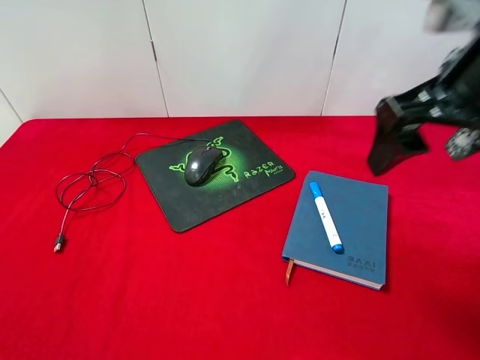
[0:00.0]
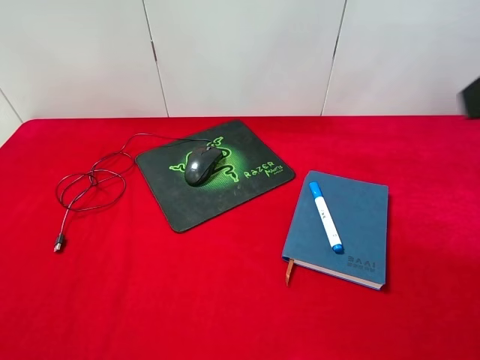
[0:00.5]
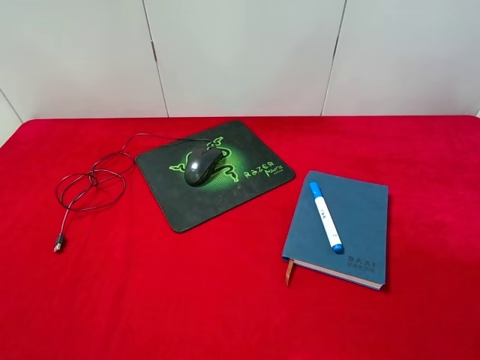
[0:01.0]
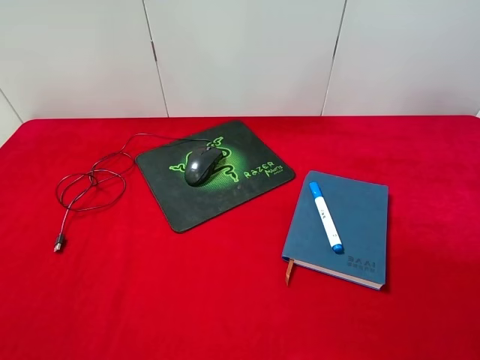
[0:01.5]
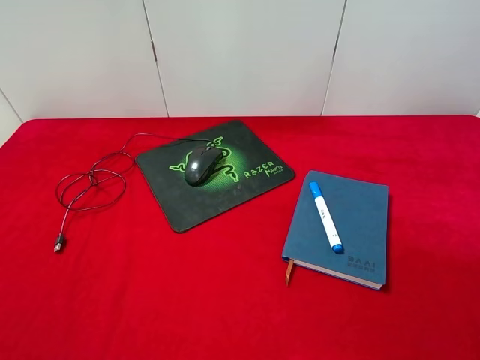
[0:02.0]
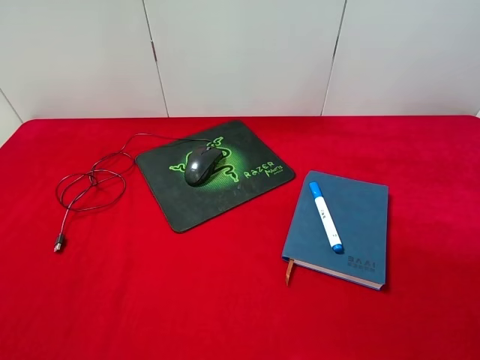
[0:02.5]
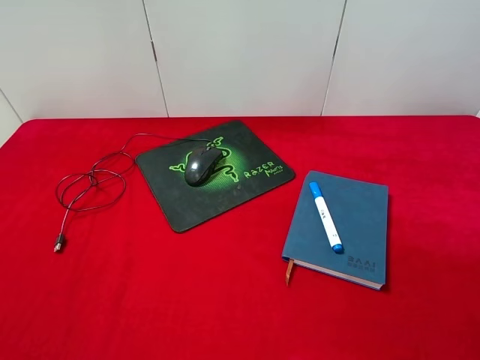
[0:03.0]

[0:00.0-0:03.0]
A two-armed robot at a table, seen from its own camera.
0:00.0 to 0:01.5: The right gripper heads backward and to the right, covering some 20 cm.
